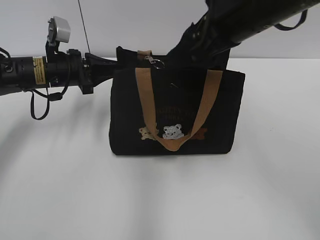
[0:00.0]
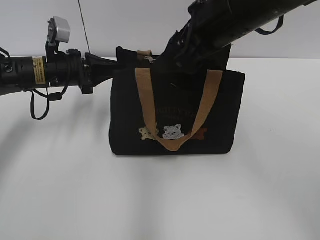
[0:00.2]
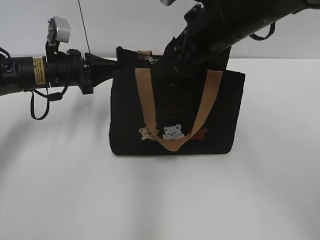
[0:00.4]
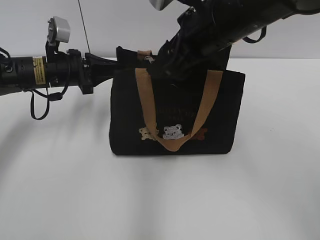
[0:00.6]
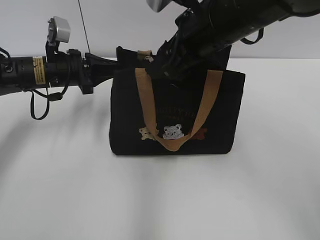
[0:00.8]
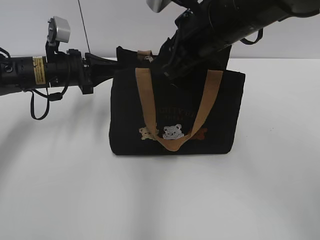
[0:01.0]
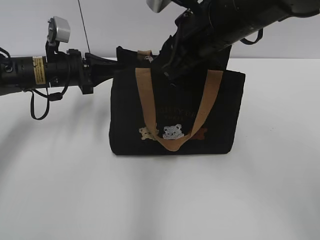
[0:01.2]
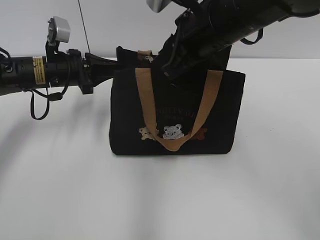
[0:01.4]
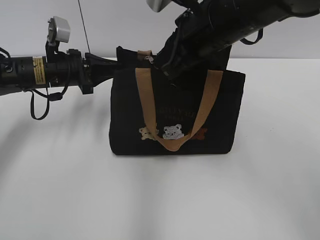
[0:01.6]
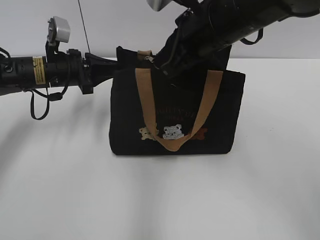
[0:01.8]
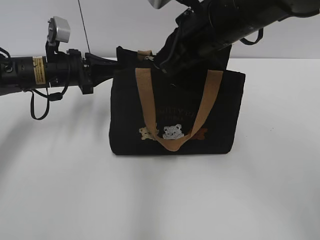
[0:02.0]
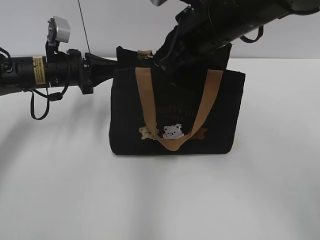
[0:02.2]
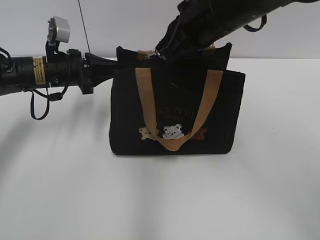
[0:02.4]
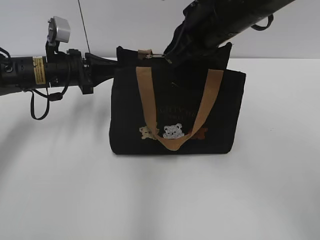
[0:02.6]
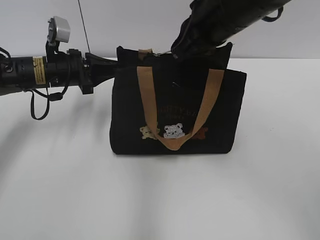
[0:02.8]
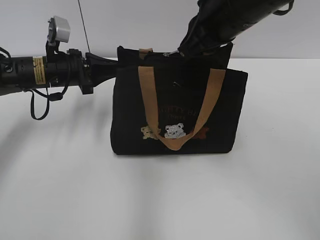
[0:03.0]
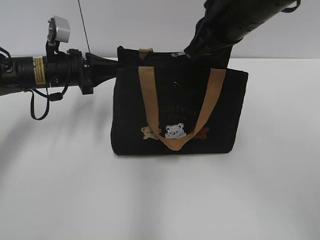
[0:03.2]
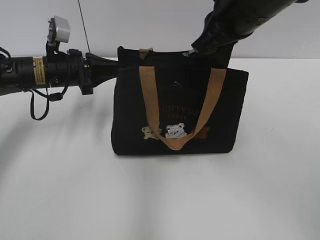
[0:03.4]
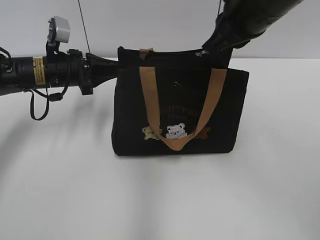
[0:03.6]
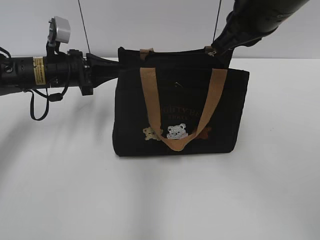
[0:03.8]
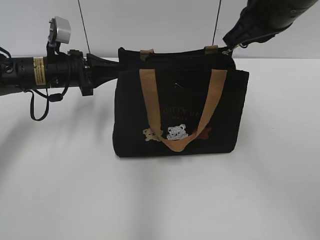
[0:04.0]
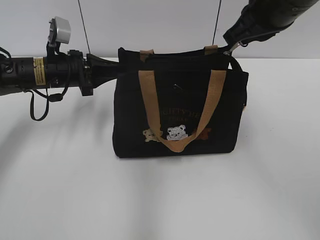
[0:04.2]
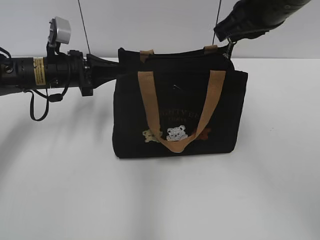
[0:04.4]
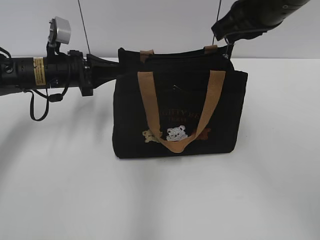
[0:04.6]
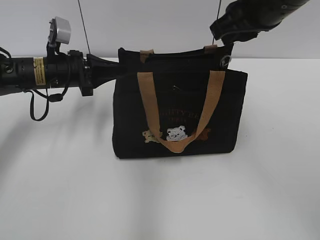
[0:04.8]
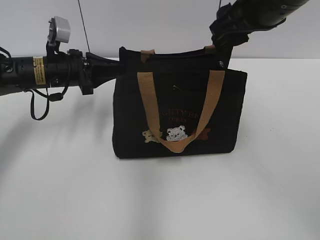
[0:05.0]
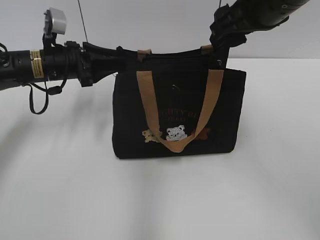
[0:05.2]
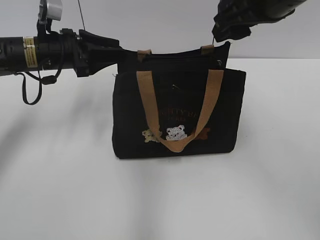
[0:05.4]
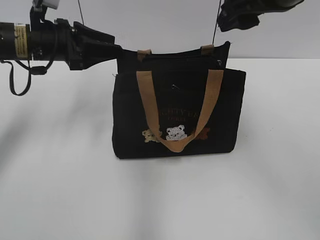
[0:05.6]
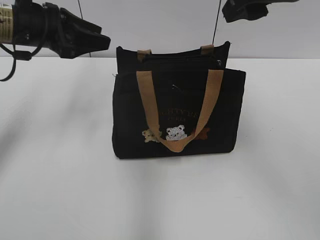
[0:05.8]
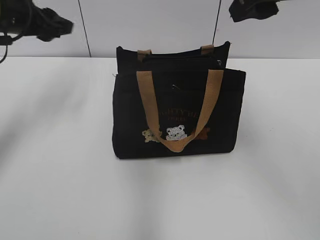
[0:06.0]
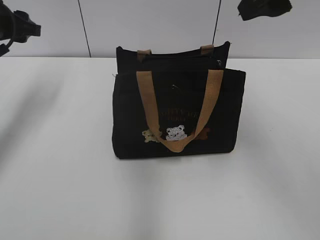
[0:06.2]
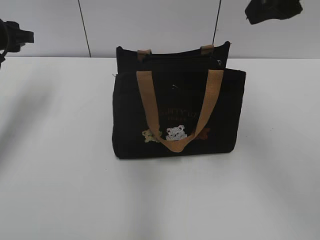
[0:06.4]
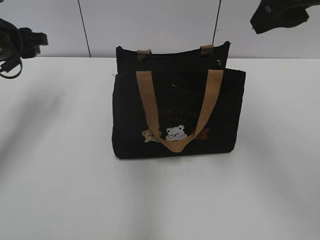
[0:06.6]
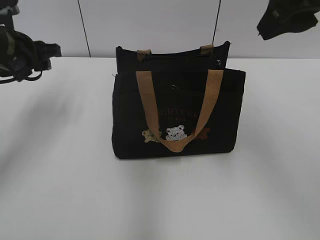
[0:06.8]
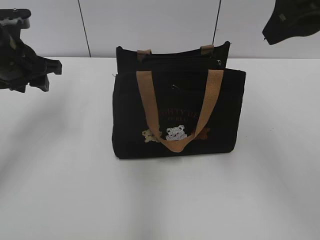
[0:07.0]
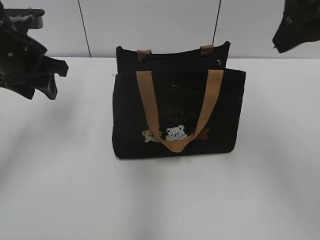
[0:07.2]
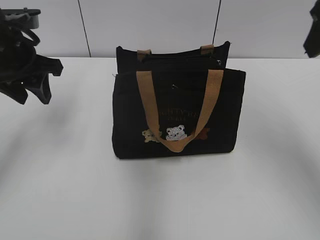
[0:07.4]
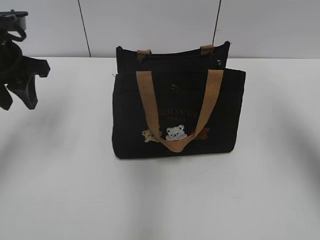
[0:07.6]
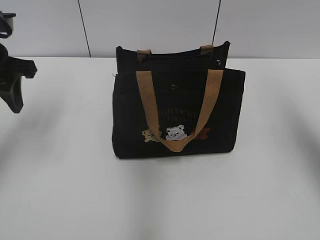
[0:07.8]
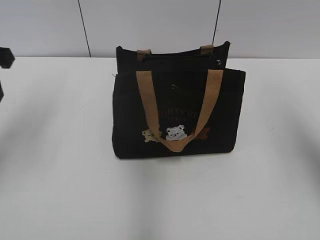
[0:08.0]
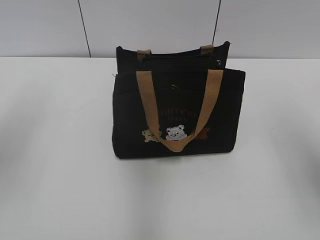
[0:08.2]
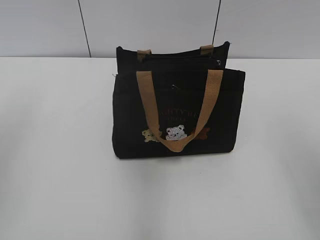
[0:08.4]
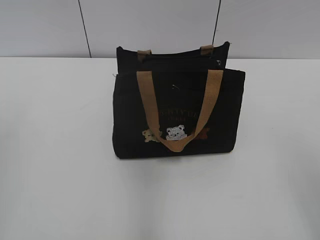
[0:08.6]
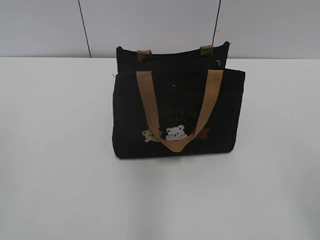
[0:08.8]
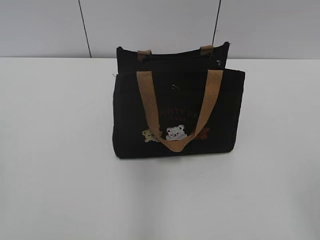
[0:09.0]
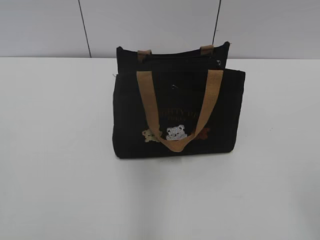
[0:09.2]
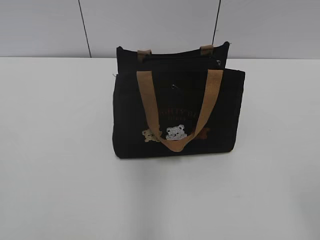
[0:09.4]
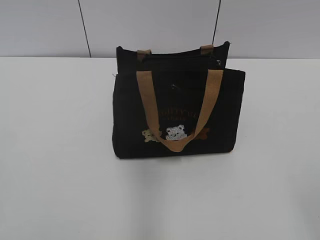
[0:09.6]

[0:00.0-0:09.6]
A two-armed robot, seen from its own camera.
Step, 0:00.0 to 0:05.0: Pull open the zipper with your right hand.
Step, 0:05.4 to 0:05.8: Hold the bag with your left hand.
0:00.0 to 0:01.6: The right gripper shifts by roughly 5 cm, and closes up.
0:01.6 to 0:03.2: The grippers move only a little.
0:03.2 to 0:04.8: The grippers make only small movements.
0:04.8 to 0:06.4: The right gripper is displaced upward and backward by some 10 cm, and opens its fingers, while the left gripper travels to the left and upward by about 15 cm, and opens up.
0:06.4 to 0:08.0: The right gripper moves to the right, roughly 10 cm. The left gripper travels backward by approximately 10 cm.
0:08.0 to 0:09.6: Both grippers move backward, approximately 30 cm.
